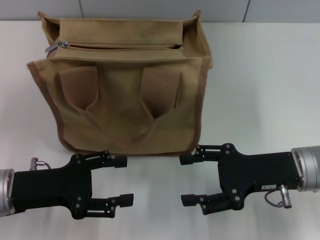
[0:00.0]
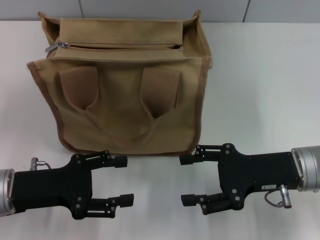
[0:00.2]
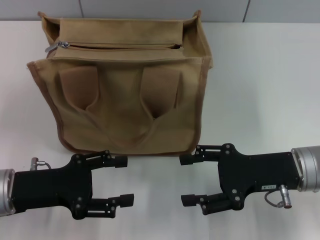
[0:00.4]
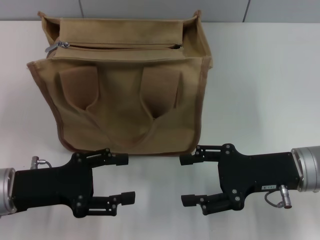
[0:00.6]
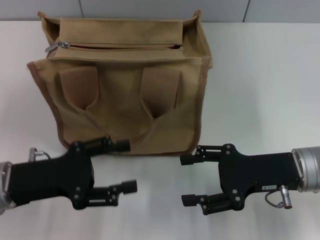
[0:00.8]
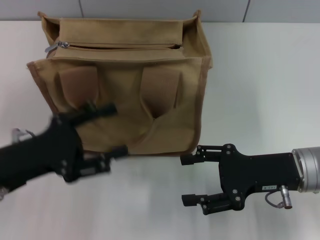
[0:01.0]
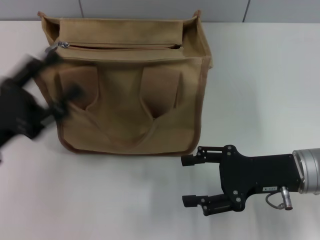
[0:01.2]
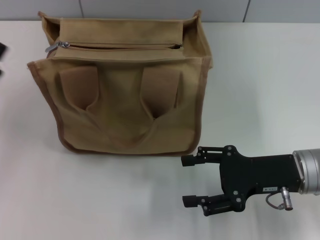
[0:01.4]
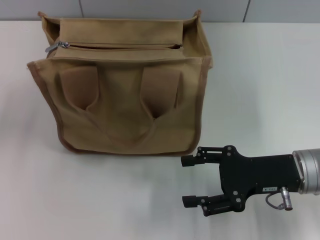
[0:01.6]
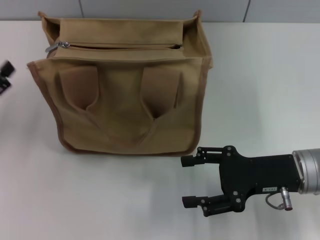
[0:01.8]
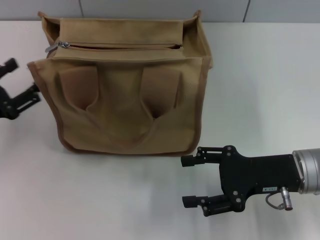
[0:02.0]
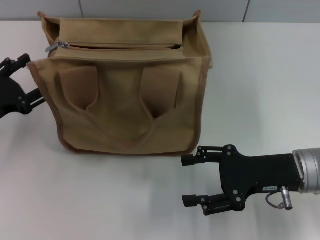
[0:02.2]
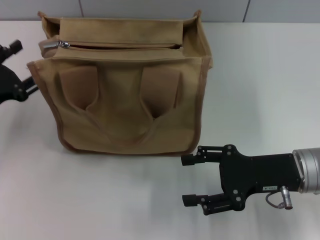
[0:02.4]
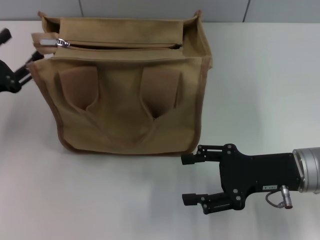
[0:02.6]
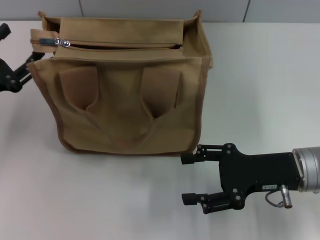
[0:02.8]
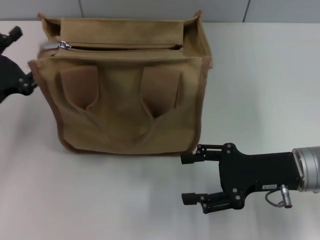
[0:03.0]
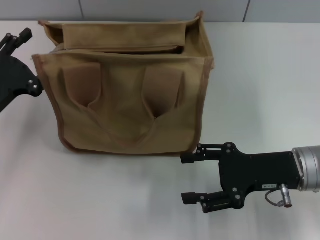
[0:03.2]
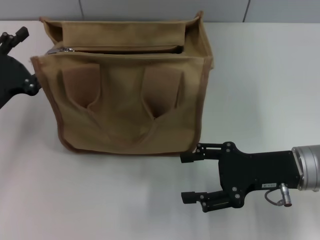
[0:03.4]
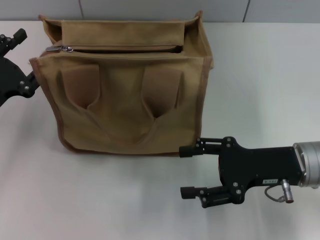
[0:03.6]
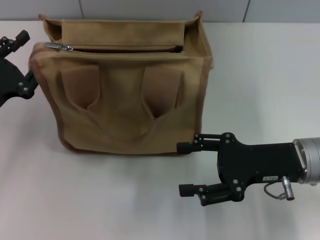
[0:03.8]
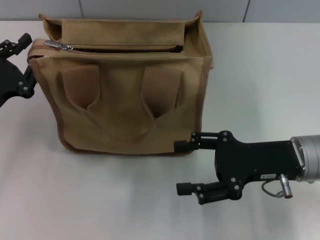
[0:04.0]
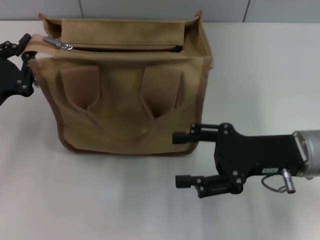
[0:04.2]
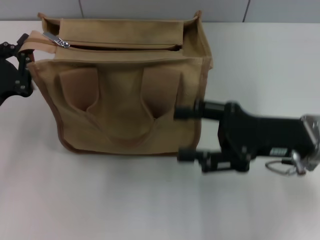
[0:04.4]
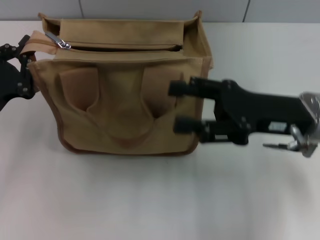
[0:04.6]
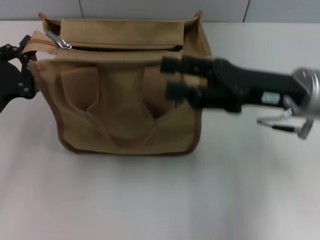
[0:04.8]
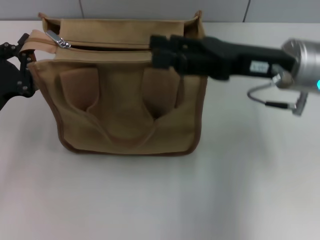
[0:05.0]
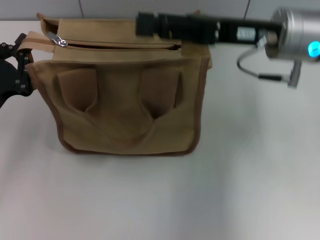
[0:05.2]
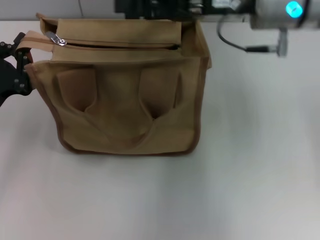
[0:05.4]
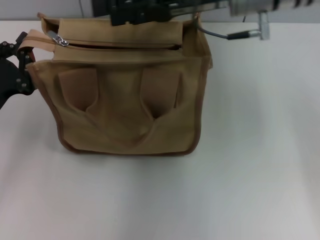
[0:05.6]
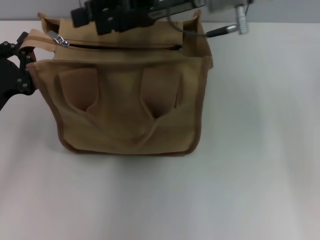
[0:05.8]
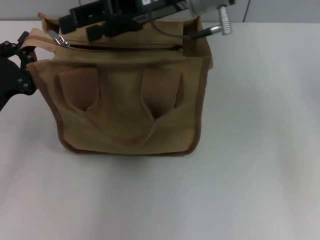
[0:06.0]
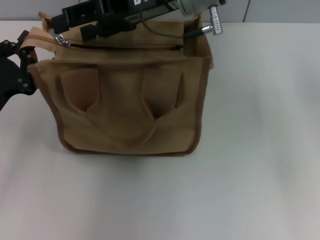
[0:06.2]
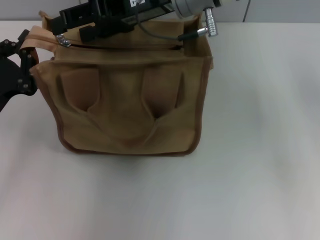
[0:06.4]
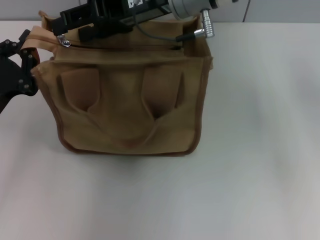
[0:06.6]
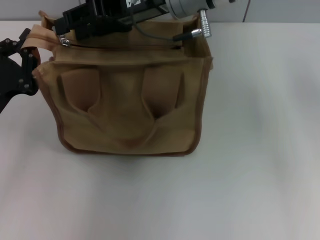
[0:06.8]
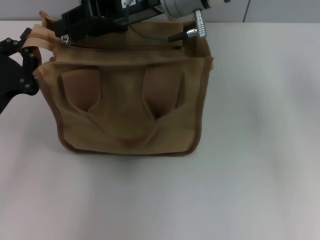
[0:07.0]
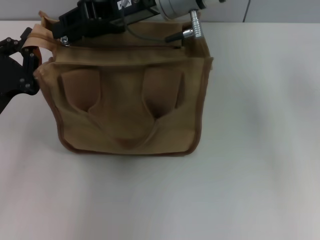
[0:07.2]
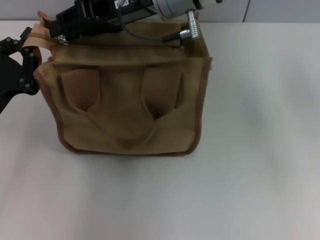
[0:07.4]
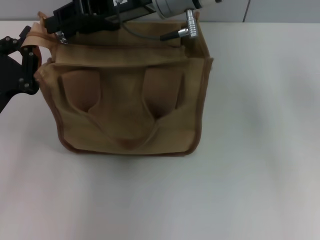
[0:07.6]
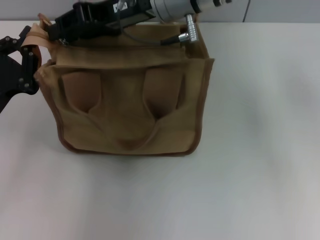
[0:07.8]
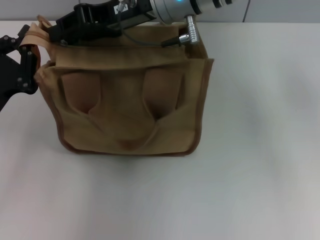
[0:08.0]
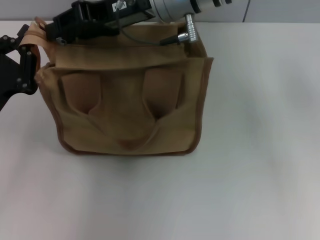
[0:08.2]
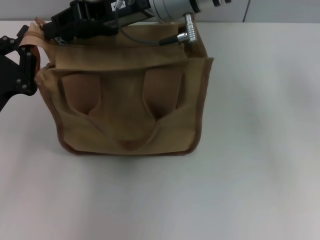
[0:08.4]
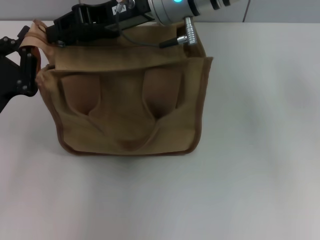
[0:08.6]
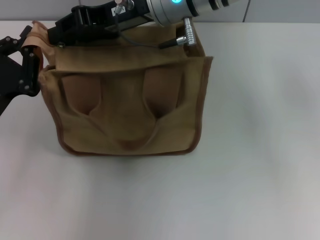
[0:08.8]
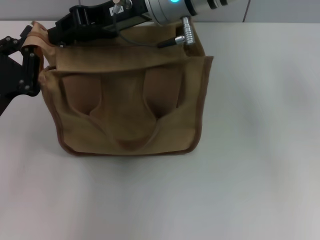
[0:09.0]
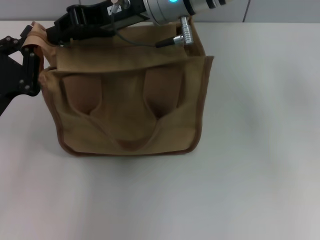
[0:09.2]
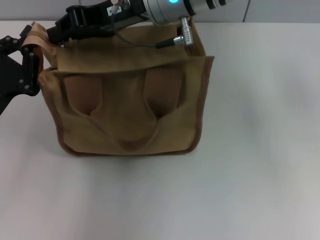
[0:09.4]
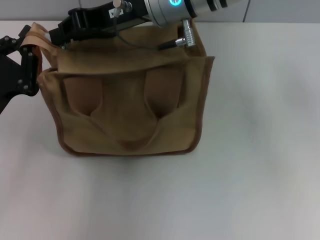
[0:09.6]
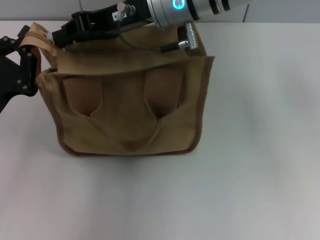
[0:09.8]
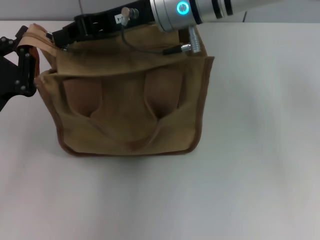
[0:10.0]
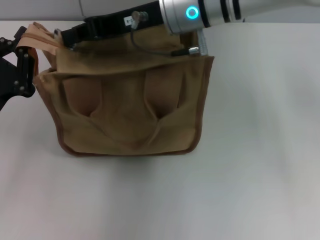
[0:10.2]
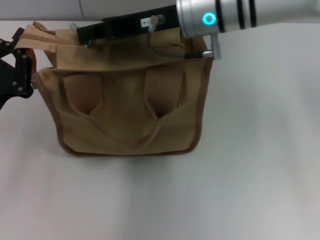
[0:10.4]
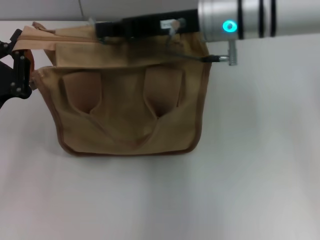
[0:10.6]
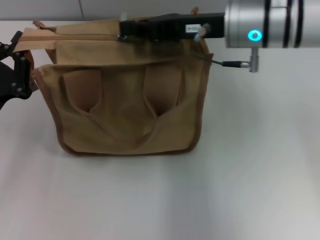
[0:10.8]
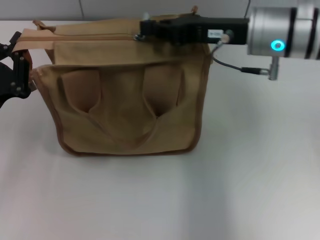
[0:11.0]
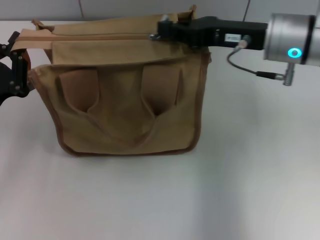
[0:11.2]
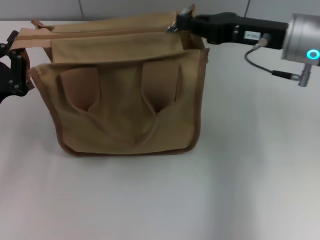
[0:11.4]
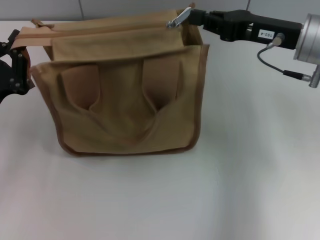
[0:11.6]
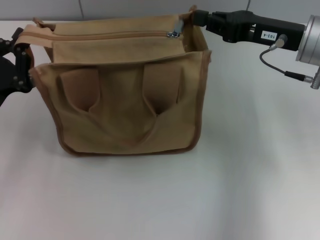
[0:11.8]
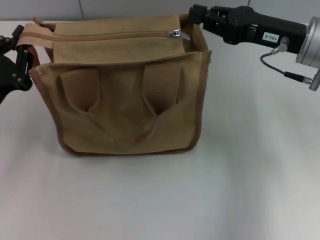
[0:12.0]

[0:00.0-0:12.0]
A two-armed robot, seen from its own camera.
Step, 0:00.0 to 0:11.6: Pull up the zipper with your right hand.
0:00.0 to 0:01.6: The left gripper shifts roughly 10 cm to the left.
0:01.6 to 0:03.0: The left gripper travels forward by about 5 cm.
0:03.0 to 0:04.4: The left gripper closes its fingers.
0:04.4 to 0:06.0: The right gripper travels to the left, forward and upward by about 25 cm.
0:06.0 to 0:07.6: The right gripper closes up.
0:07.6 to 0:09.0: Both grippers stay put.
0:09.0 to 0:10.4: The grippers stay close to where they were, moving slightly.
0:10.4 to 0:12.0: The right gripper goes approximately 15 cm to the right.

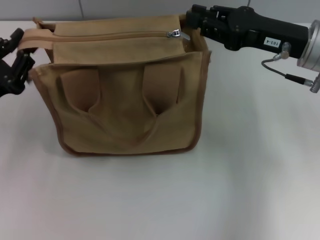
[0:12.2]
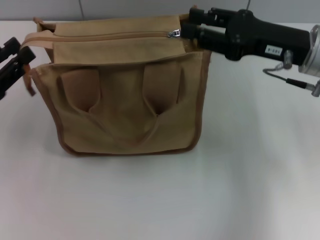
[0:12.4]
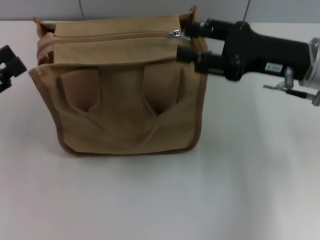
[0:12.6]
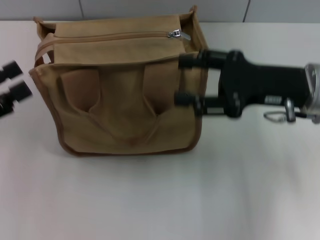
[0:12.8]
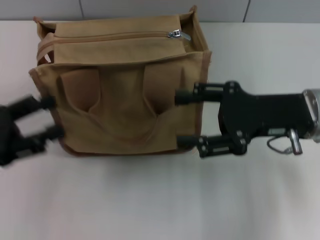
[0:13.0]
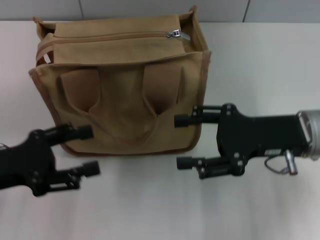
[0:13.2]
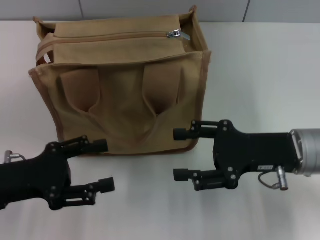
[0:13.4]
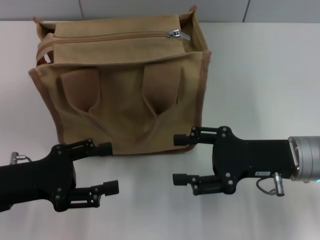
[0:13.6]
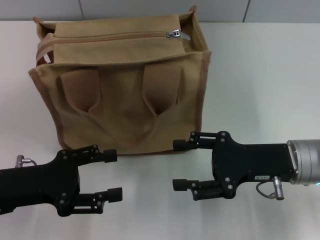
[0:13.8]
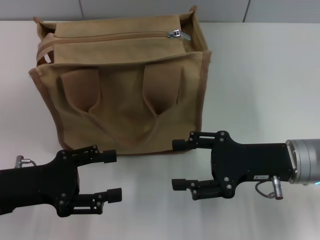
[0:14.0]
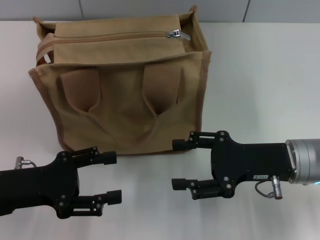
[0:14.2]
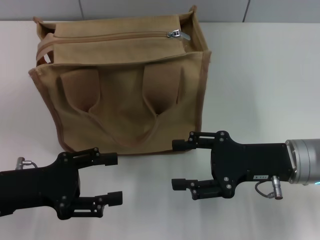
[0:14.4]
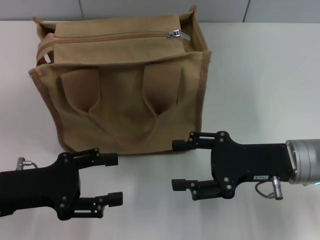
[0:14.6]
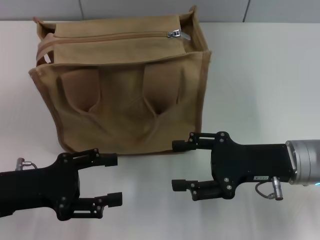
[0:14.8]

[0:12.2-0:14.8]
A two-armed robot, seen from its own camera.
0:12.2 to 0:13.4: The right gripper shifts about 10 cm backward and downward, and opens its fingers. Meanwhile the left gripper opens its fingers.
0:13.4 to 0:14.8: The grippers make only small movements.

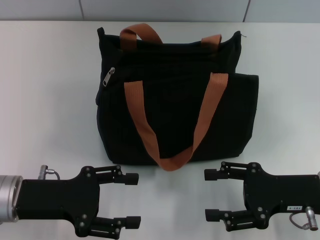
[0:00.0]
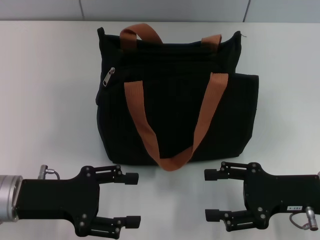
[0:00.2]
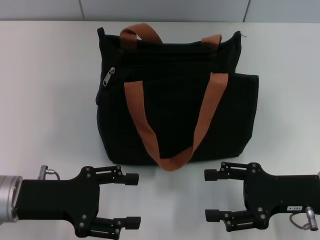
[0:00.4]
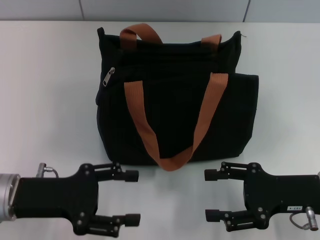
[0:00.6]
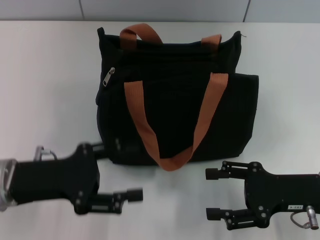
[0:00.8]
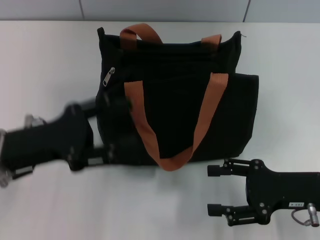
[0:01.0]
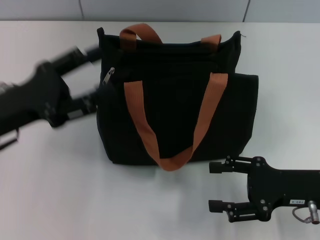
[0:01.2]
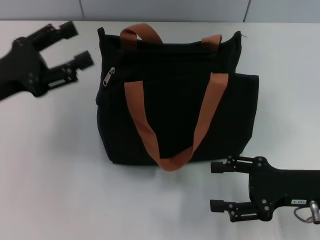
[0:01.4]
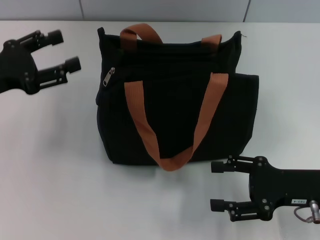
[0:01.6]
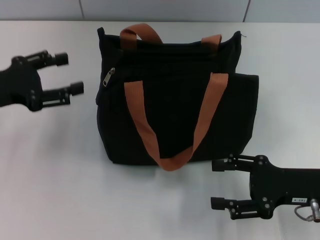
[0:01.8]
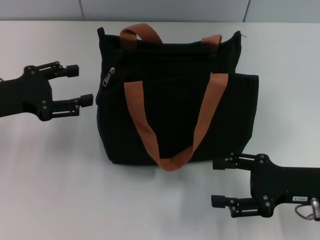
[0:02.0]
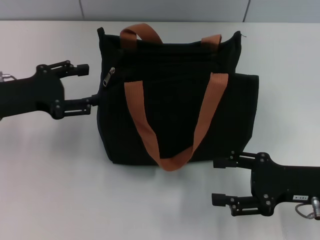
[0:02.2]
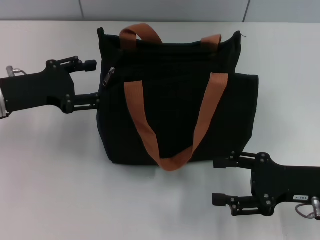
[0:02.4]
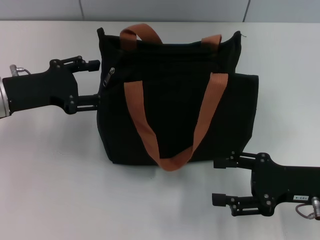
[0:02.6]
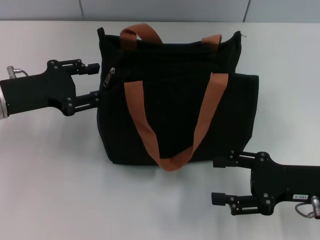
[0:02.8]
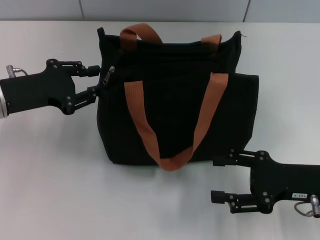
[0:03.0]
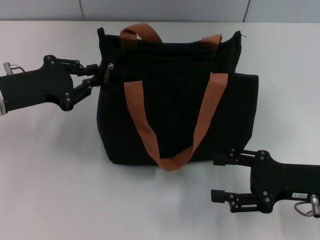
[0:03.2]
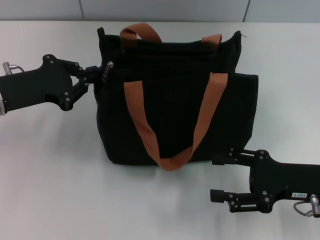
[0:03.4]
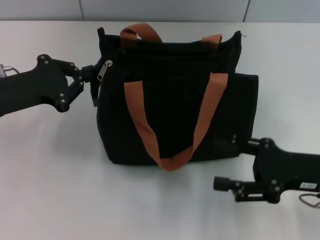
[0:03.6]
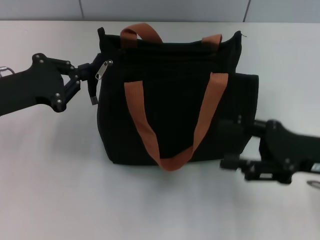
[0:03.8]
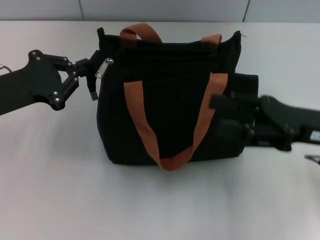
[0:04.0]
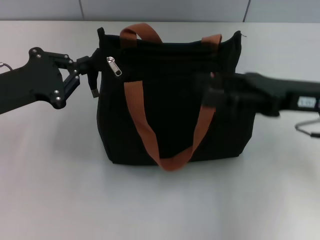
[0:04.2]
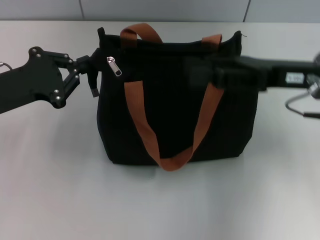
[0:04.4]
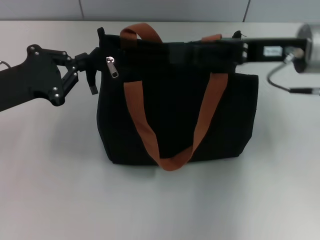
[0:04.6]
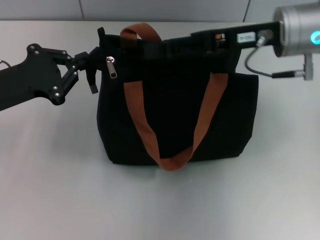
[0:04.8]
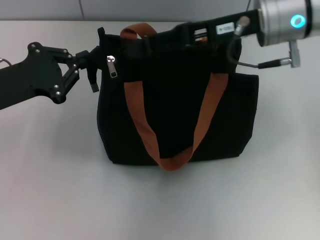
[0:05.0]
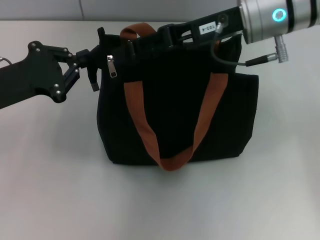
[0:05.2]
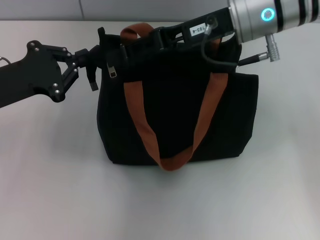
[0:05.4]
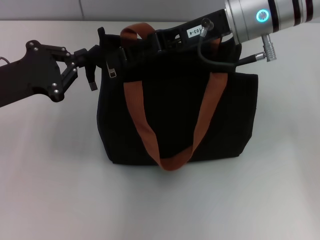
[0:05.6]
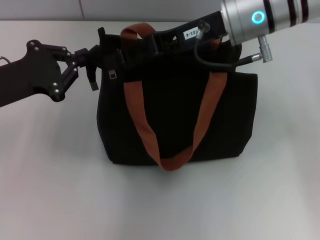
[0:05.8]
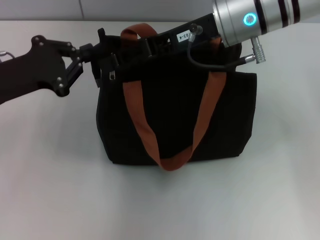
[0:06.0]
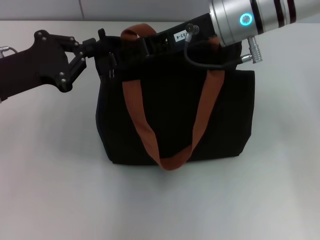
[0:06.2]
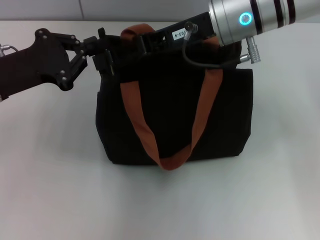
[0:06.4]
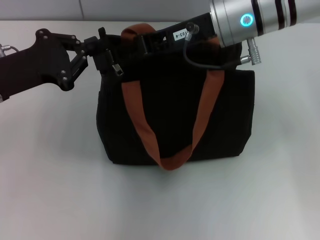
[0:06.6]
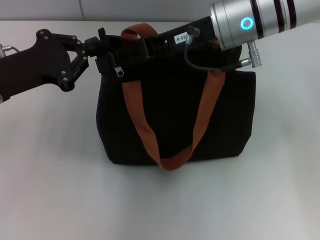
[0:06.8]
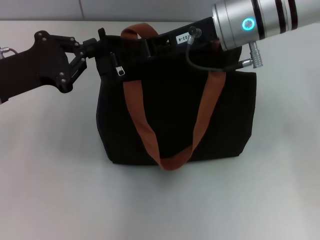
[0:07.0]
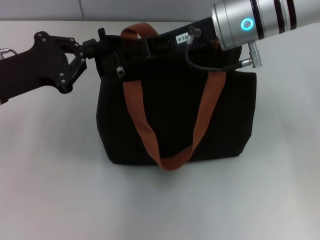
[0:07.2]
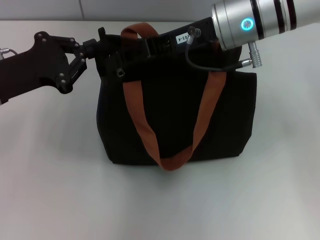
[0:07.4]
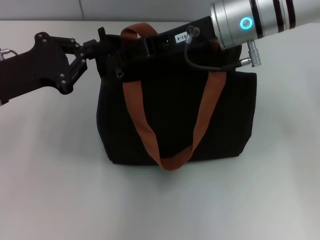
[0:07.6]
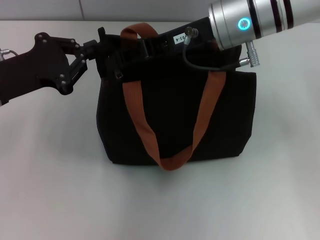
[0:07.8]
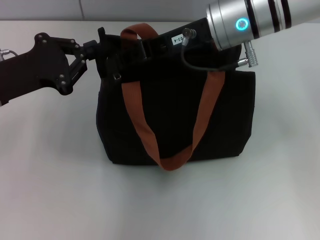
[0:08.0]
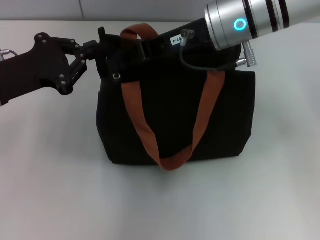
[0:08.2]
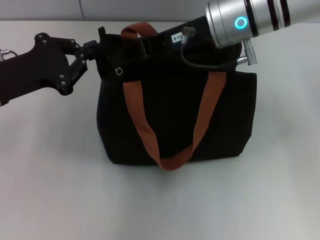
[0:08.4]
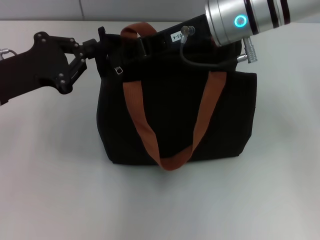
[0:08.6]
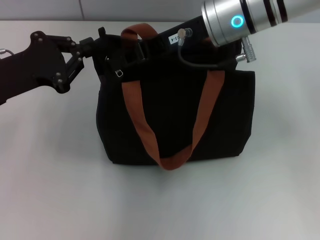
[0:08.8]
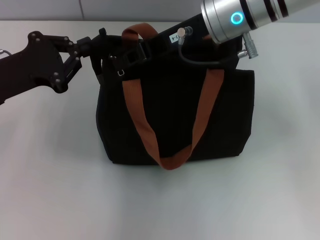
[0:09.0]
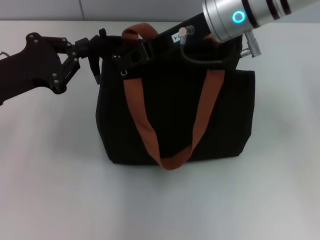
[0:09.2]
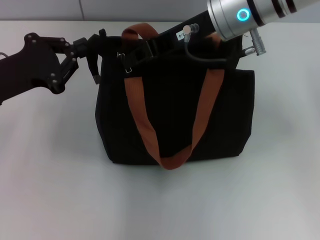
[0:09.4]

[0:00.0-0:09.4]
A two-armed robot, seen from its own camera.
0:00.0 to 0:01.6: The left gripper heads forward, to the left and upward, covering about 10 cm.
0:01.6 to 0:03.2: The left gripper closes.
0:03.2 to 0:04.8: The right gripper is displaced upward, forward and to the left by about 20 cm. Meanwhile the left gripper closes up.
0:04.8 to 0:06.2: The right gripper travels to the left by roughly 5 cm.
0:06.2 to 0:07.8: The right gripper closes.
0:07.8 to 0:09.4: The grippers make only small movements.
